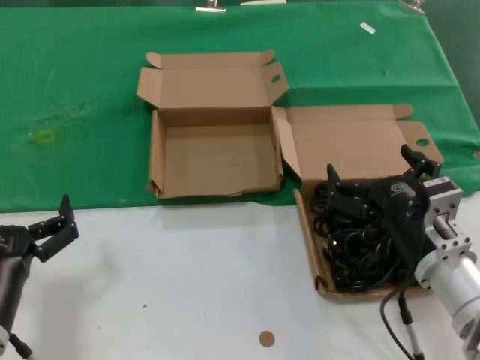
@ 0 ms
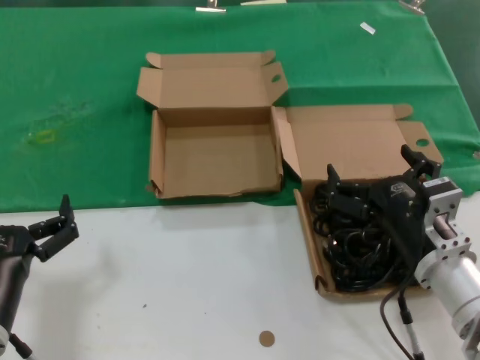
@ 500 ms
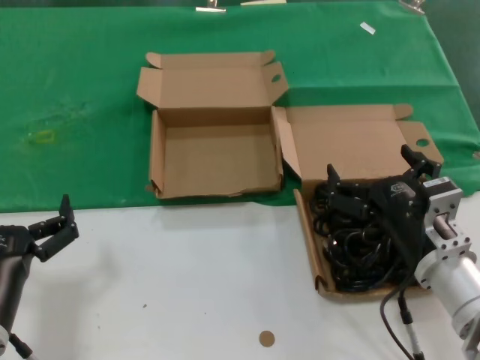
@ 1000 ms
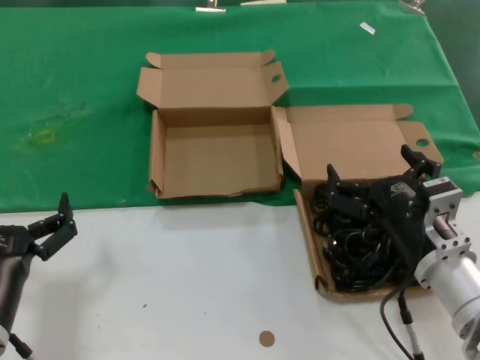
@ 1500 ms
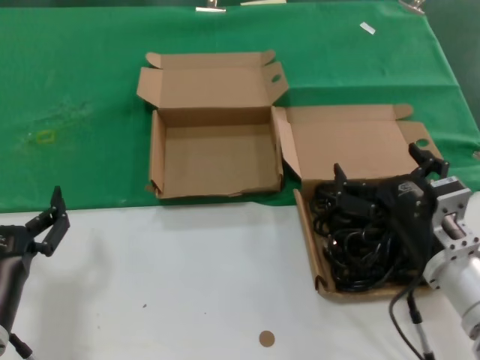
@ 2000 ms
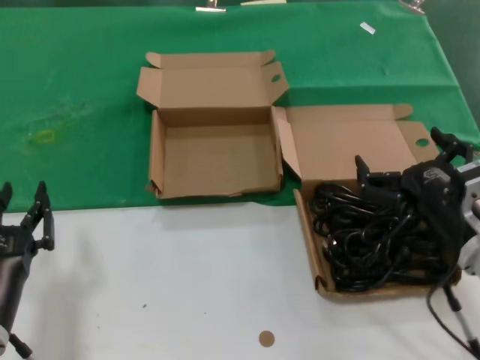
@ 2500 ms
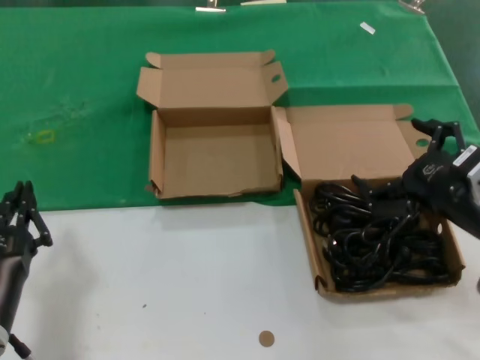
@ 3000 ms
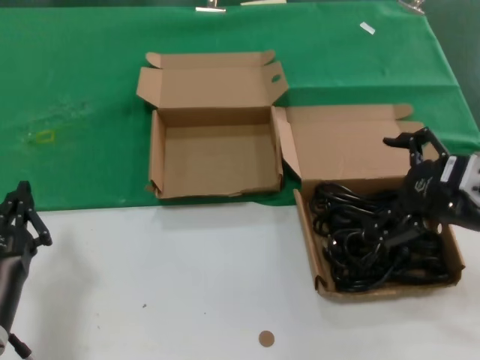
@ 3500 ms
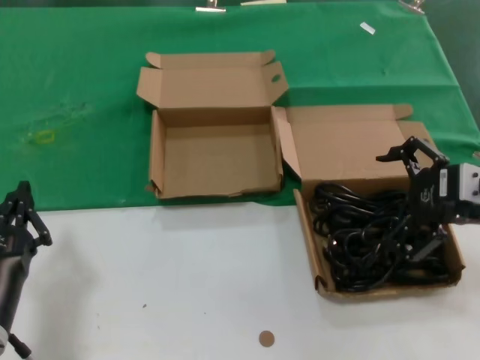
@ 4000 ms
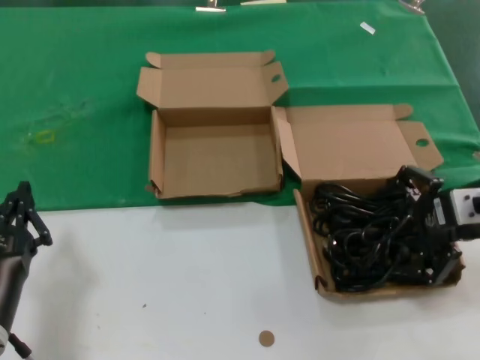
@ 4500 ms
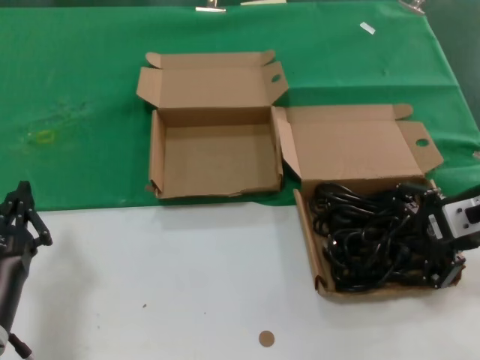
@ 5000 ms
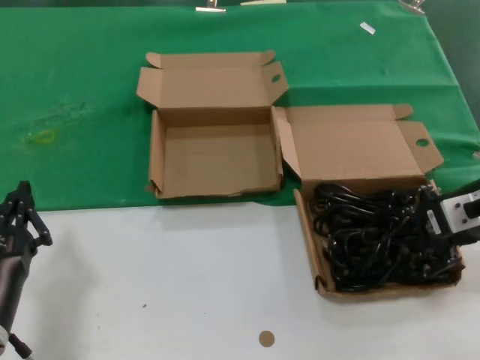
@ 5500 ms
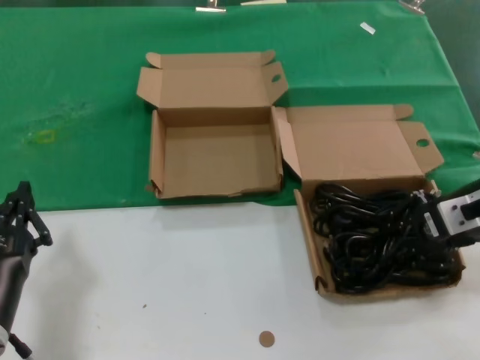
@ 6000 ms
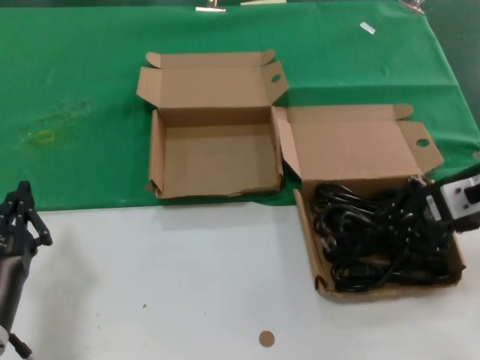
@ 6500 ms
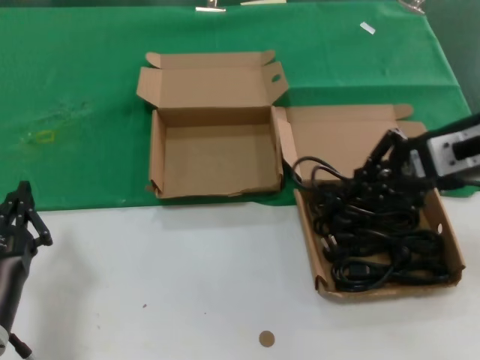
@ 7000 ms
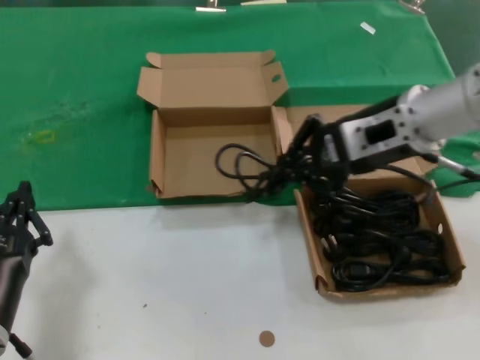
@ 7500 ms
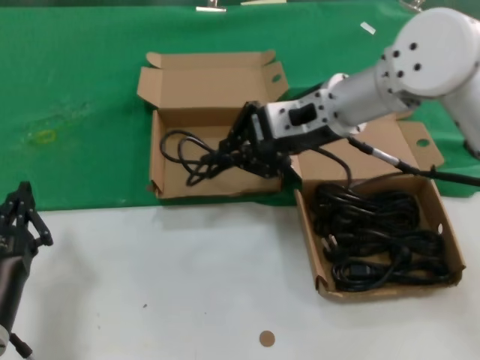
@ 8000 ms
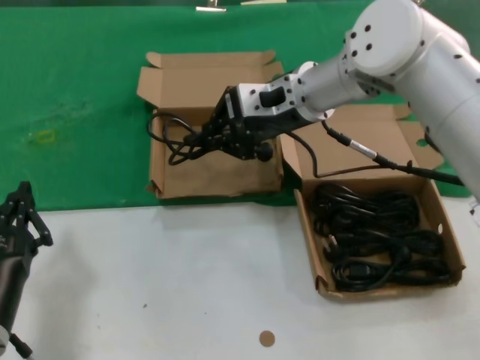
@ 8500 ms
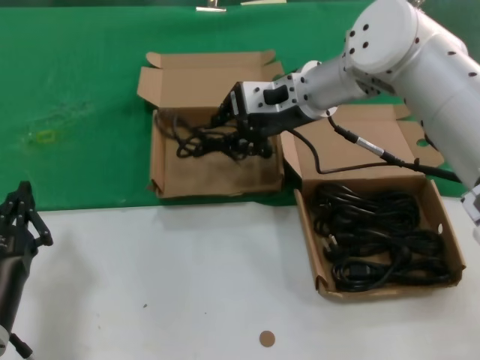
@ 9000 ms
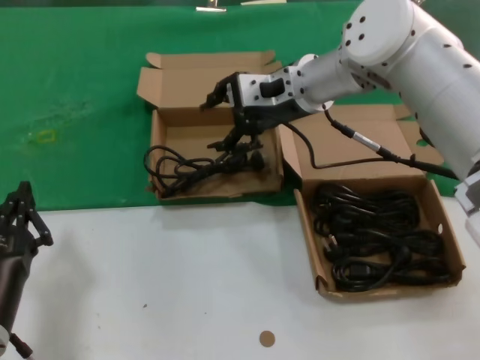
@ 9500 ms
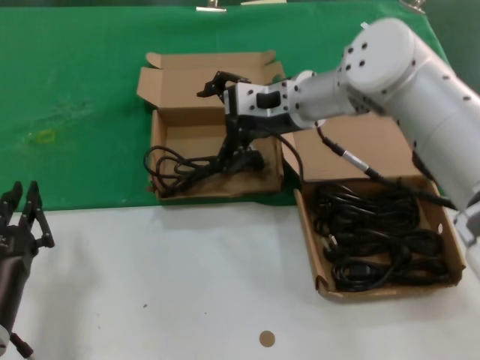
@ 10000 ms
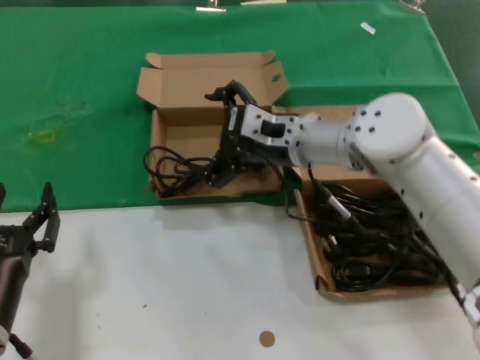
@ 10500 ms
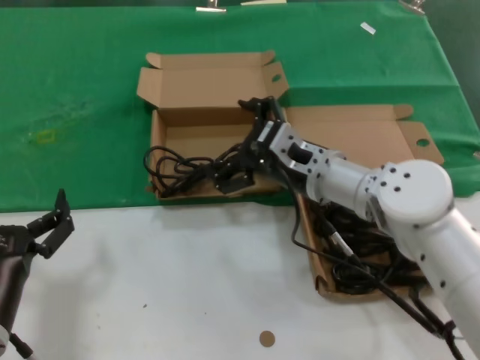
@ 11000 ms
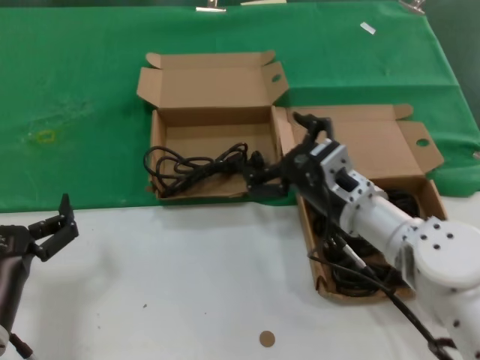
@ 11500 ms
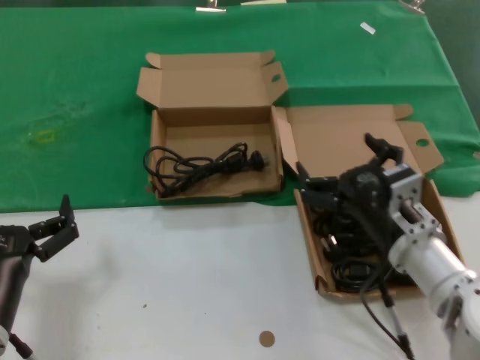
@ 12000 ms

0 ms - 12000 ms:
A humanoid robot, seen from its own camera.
Task of the whole recording: take the parts from the box containing them and put them into an empty box.
Step, 0 ms - 6000 ms: Grasp the data cable.
Step, 6500 ms - 9000 ms: Place the data cable in the another box.
0 ms - 2000 ms: Both hands stay about where they are.
2000 ms - 4000 ms: The right hand moves upward and to the right, some 15 cm.
4000 ms - 6000 ms: The right hand changes place by approximately 5 cm.
6000 ms - 8000 ms: The right hand heads to the left, forward and upward, covering some 20 cm.
8000 ms - 10000 ms: The right hand travels forward by about 5 cm.
10000 ms - 12000 ms: The right hand moves backward, downward and to the right, approximately 25 cm.

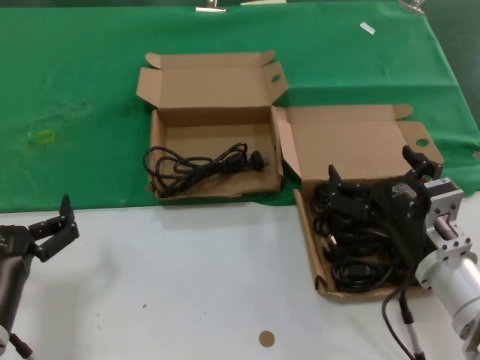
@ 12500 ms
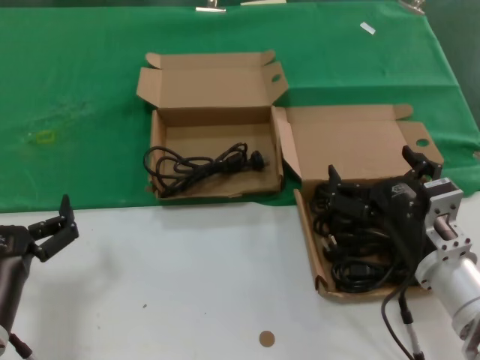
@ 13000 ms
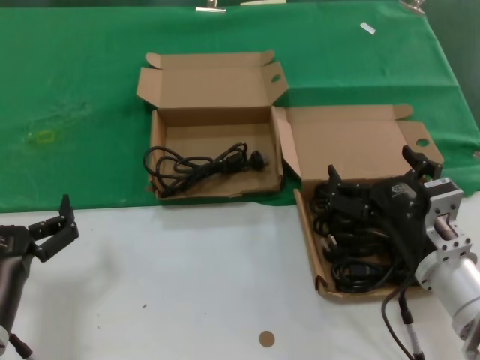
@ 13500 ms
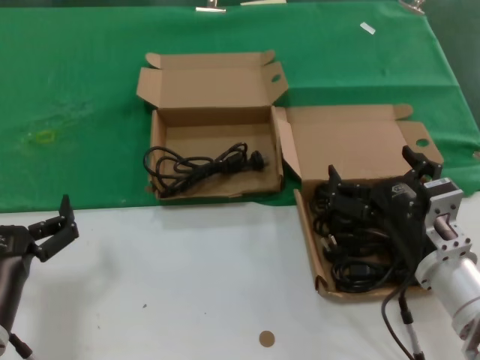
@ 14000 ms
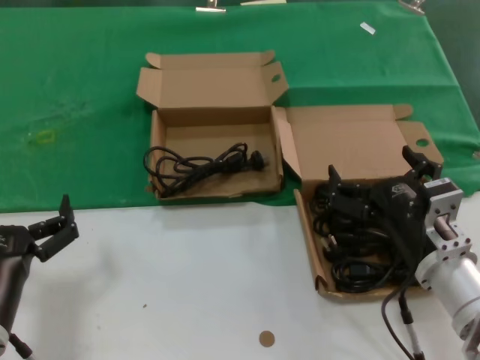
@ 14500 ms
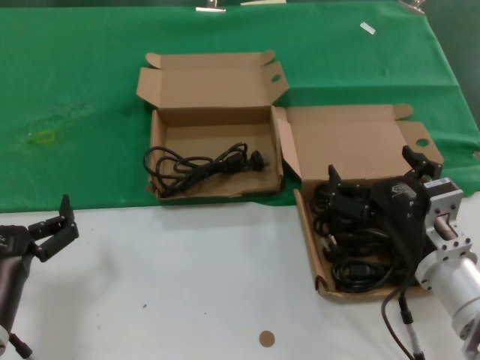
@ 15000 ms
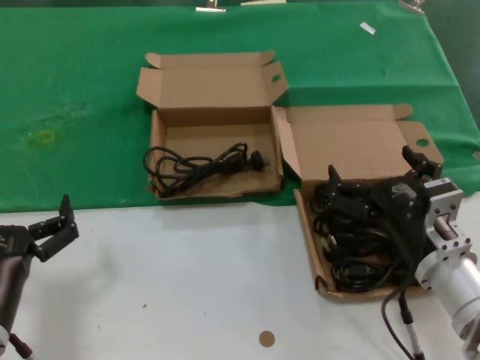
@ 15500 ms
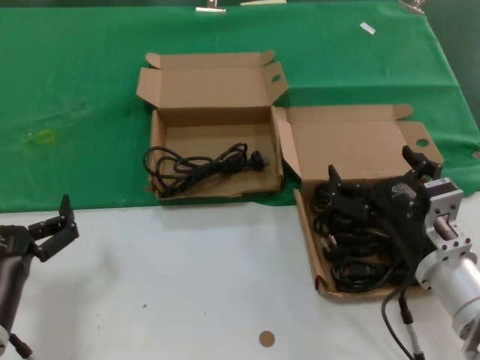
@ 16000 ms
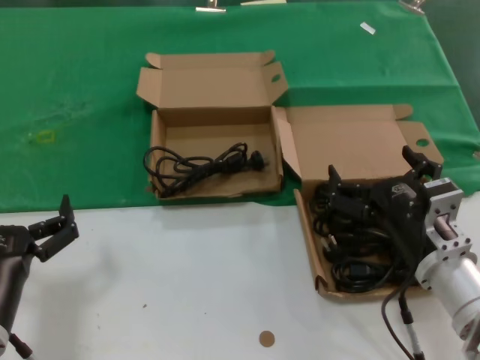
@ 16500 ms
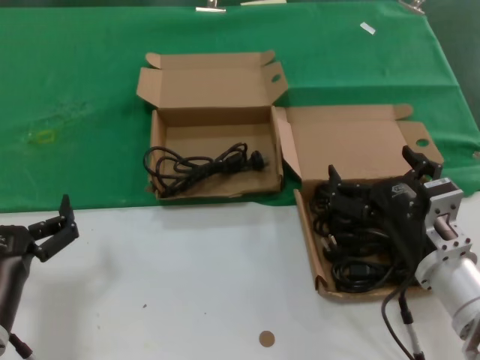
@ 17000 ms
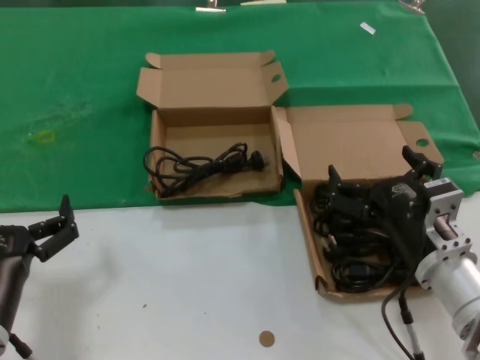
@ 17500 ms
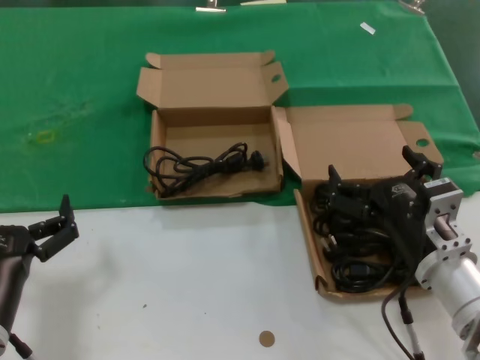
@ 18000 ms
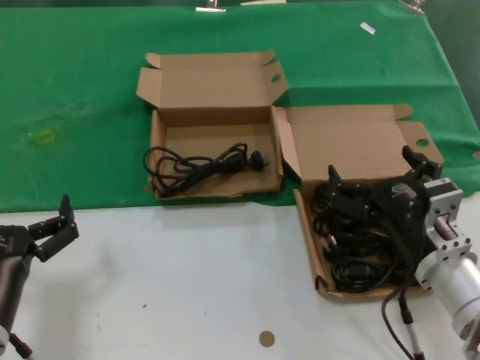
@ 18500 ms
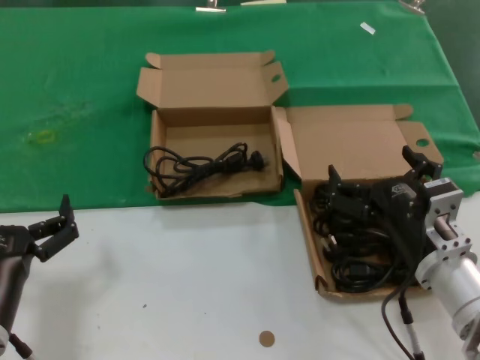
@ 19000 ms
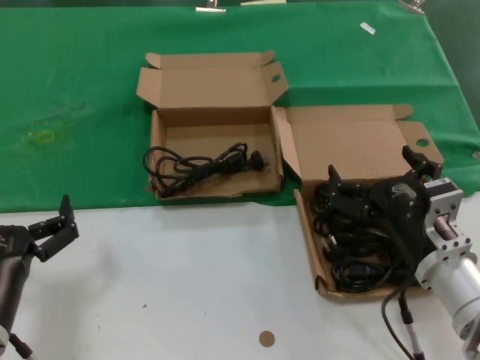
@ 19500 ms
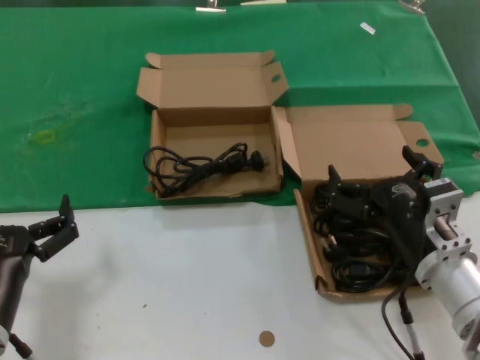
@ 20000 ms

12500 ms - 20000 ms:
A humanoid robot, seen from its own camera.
Task of the whole recording: take the parts from the box containing them and put them into an empty box.
12500 ms - 20000 ms: Both hands stay about where they are.

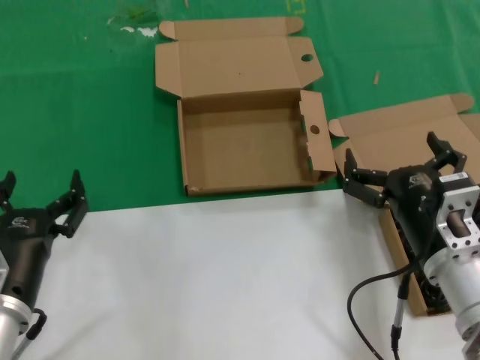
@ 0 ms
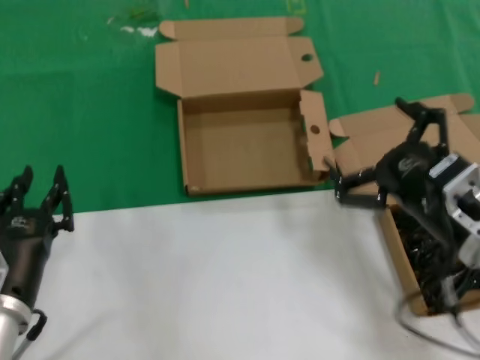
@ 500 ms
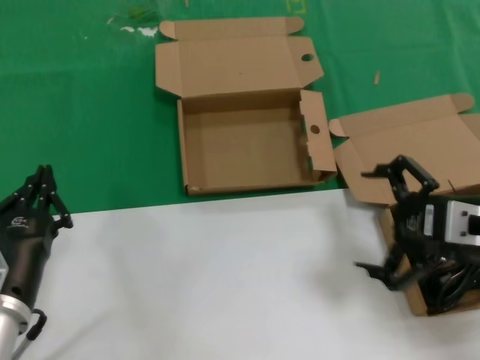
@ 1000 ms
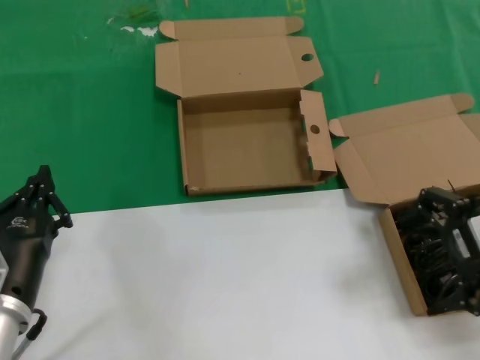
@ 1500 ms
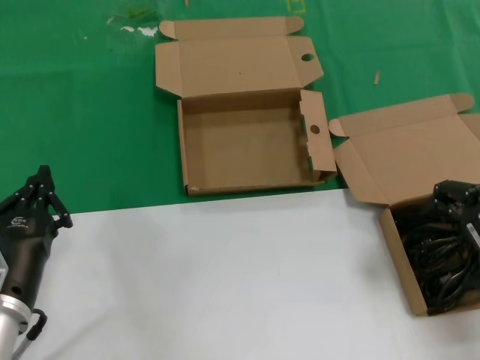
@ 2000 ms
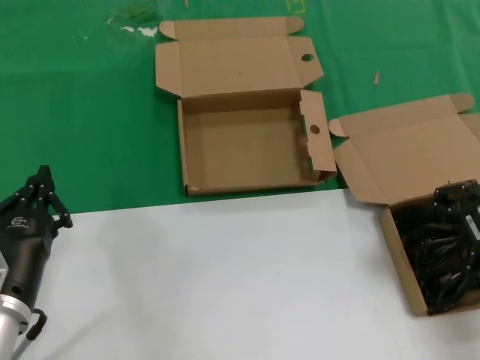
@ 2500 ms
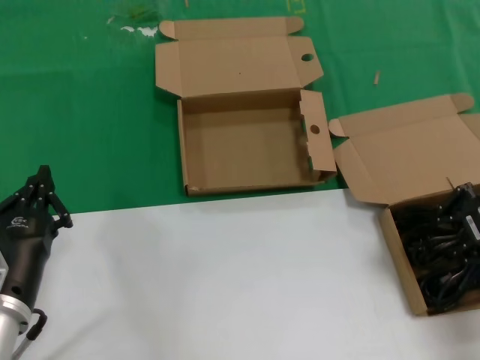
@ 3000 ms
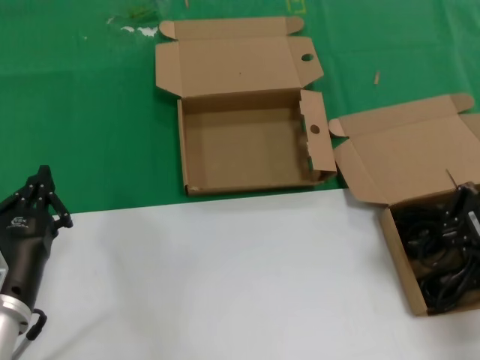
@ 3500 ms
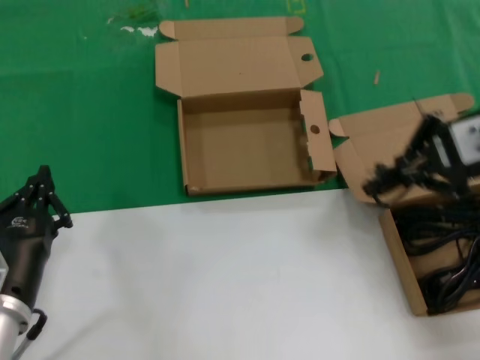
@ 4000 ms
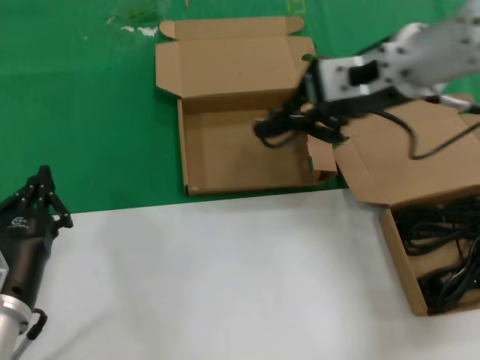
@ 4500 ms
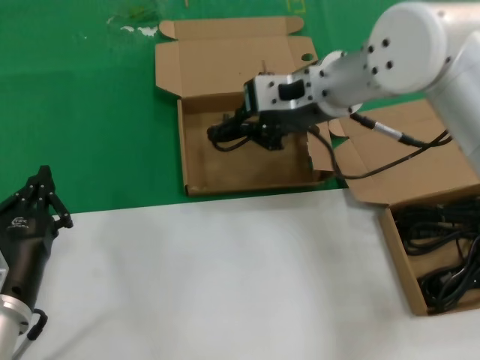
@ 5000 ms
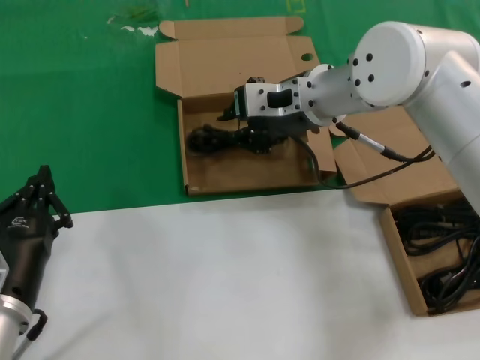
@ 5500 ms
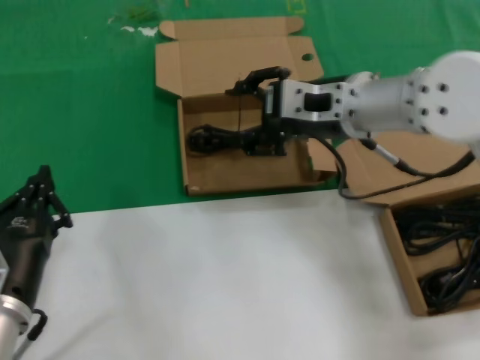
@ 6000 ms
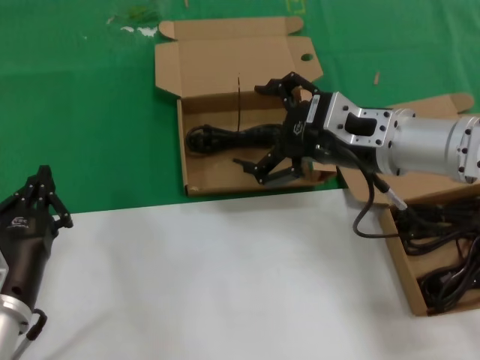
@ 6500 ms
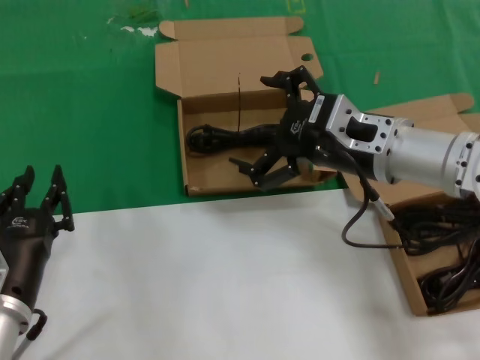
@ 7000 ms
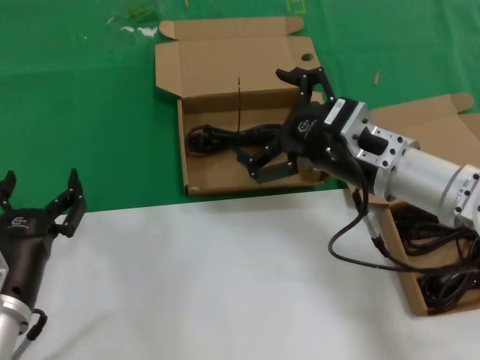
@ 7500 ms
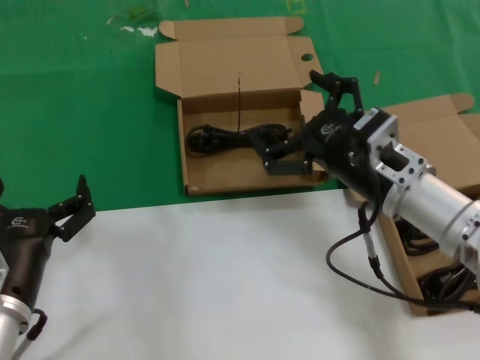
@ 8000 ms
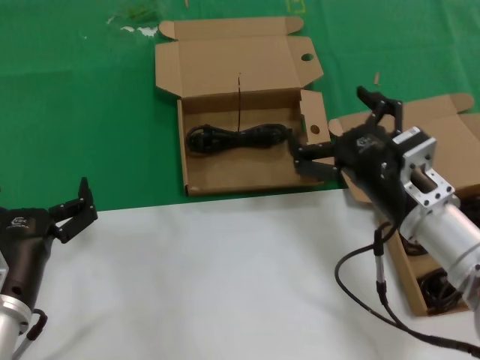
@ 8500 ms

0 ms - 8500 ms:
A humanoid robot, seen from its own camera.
Task of the whole recording: take the parts from the box containing them and put them into an empty box.
Step, 0 ms - 3000 ms: Grasp the data cable.
Step, 3500 ms - 5500 ms: Place the data cable in the another box.
0 ms - 2000 ms: The right hand goes approximately 20 cm upward and to the right.
2000 ms - 4000 ms: The right hand travels upward by about 10 cm.
4000 ms - 6500 ms: The right hand goes approximately 15 cm to the left and downward.
6500 ms - 8500 ms: The right hand goes roughly 15 cm downward and backward.
